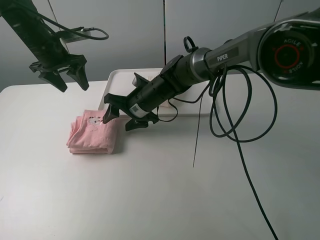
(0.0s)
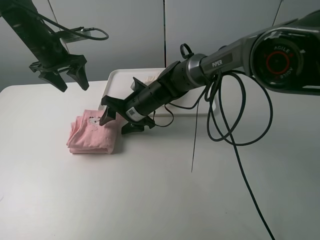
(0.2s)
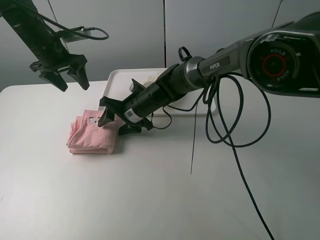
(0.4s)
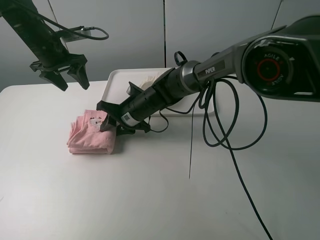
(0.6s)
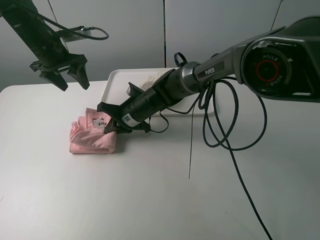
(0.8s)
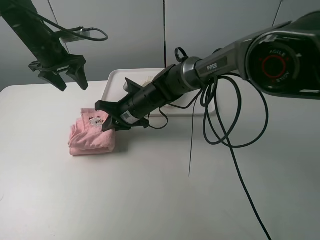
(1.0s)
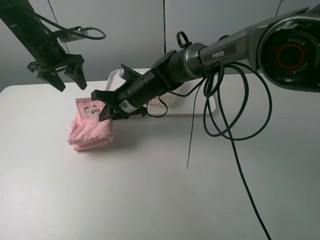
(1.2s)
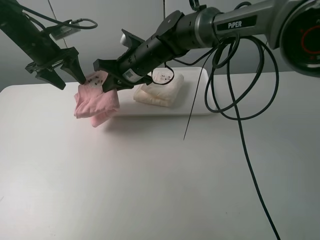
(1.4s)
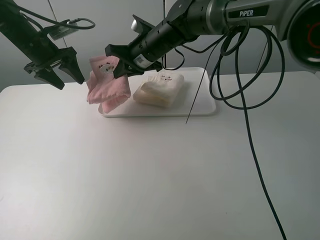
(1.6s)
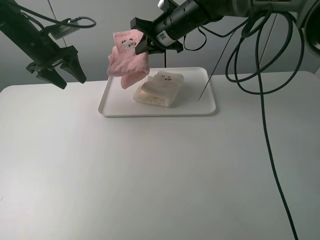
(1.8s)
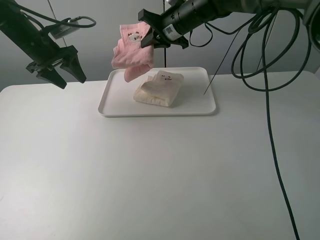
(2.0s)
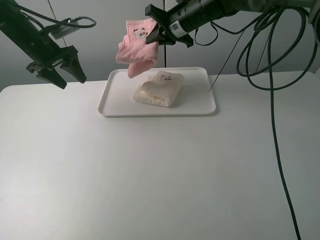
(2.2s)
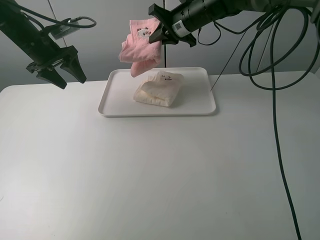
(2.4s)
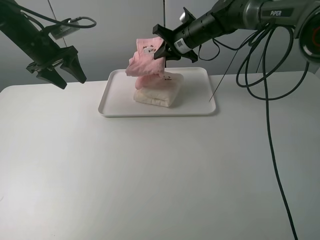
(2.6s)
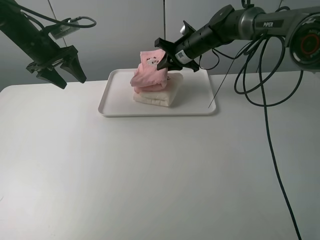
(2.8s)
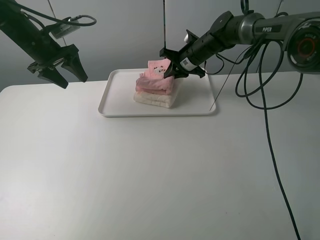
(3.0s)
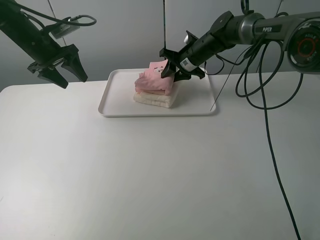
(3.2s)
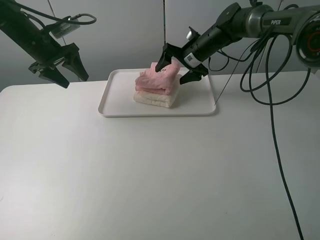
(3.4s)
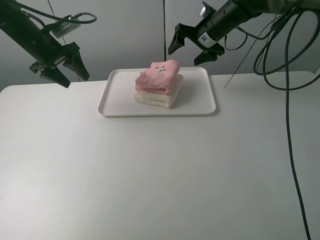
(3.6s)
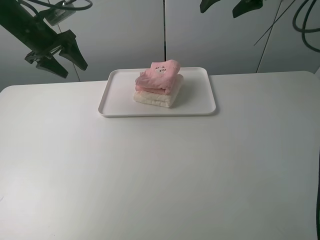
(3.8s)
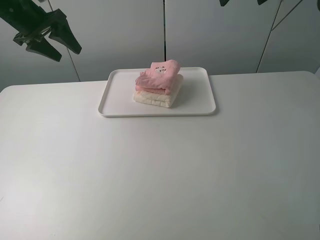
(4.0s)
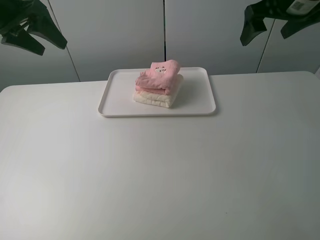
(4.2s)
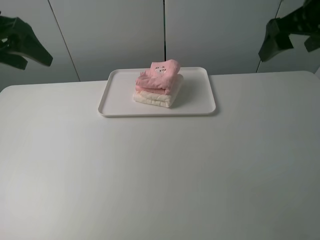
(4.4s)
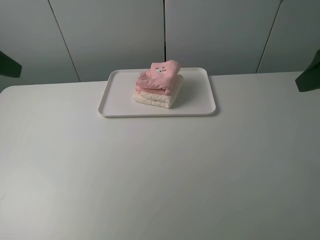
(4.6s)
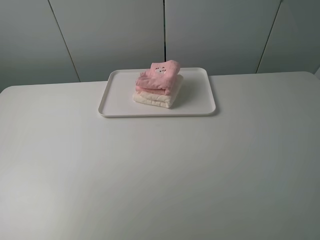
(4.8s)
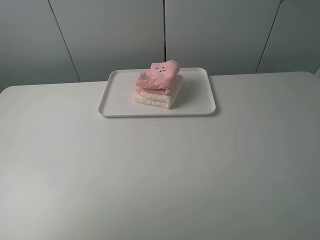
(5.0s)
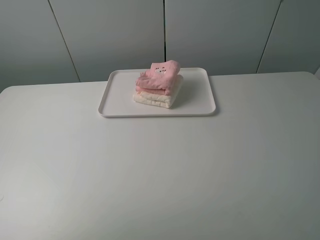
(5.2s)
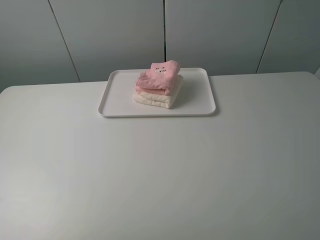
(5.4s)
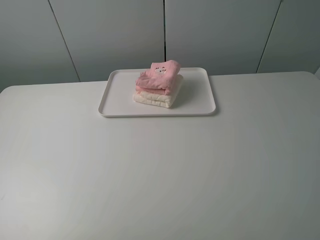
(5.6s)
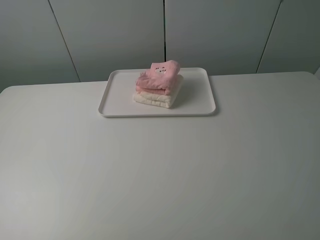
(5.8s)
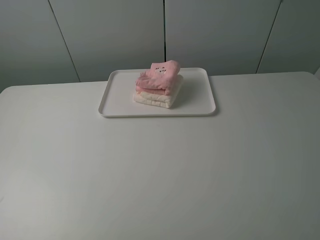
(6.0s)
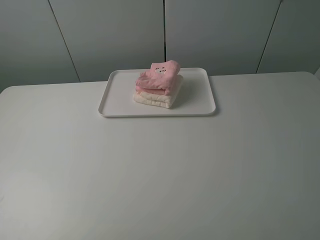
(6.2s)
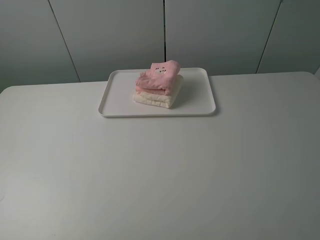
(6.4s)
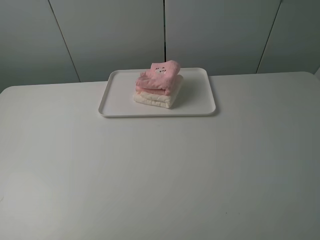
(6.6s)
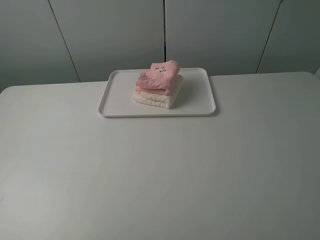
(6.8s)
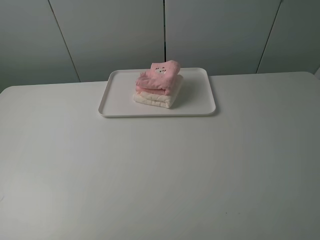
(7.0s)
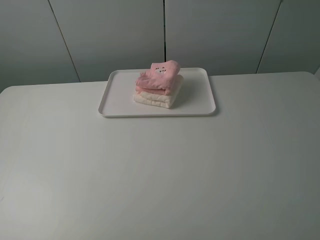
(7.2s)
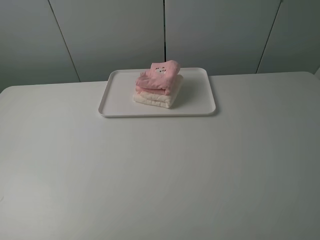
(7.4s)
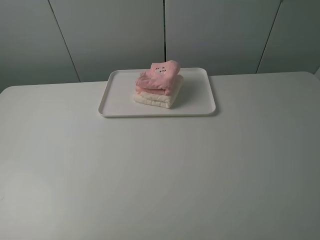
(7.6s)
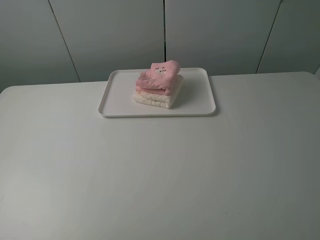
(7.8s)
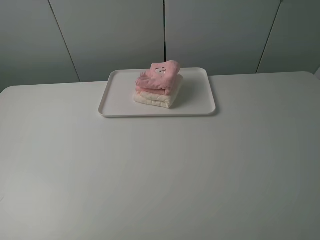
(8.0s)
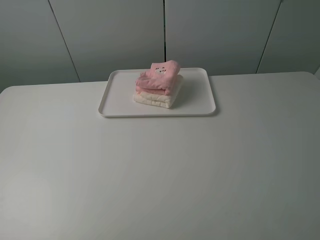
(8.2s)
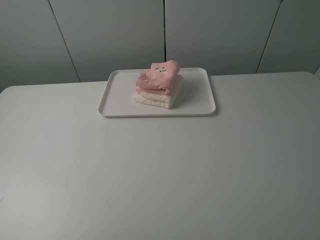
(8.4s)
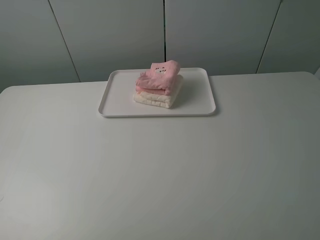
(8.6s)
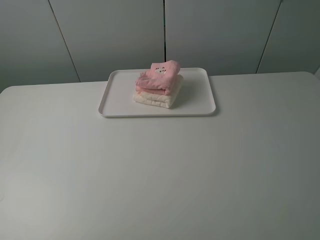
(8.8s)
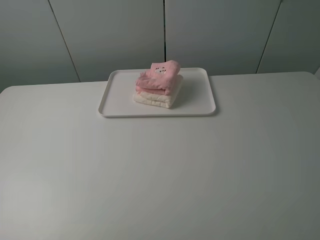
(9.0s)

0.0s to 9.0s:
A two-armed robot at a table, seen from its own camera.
Task of the whole recording: fold one of the towels by two grippers and place it on the tray,then fold another towel by two grippers and place it on the folded towel.
Step, 0.0s to 1.0s: Grasp the pink towel with the right gripper.
Step, 1.2s to 3.6s: Place the pink towel on the white towel with the right gripper.
0.0s to 1.6s: The right gripper moves upward and forward, some 15 cm, and closes up.
1.6s to 3.0s: The right gripper travels to the right, forward and downward by some 15 cm.
3.0s to 4.4s: The left gripper moves backward and upward, roughly 20 cm. Meanwhile the right gripper heads backward, upward and to the right, covering about 35 cm, and opens up.
4.4s to 6.0s: Both grippers travel together backward, roughly 30 cm.
7.6s to 9.0s: Neither gripper changes place.
